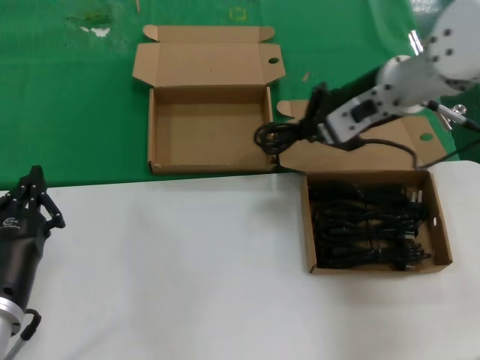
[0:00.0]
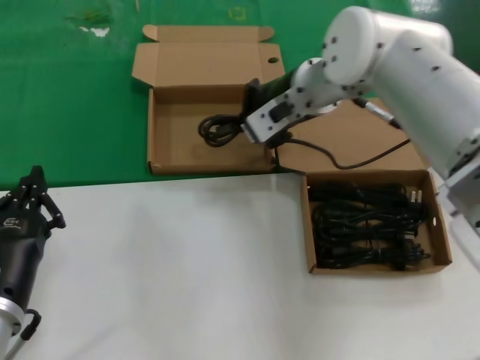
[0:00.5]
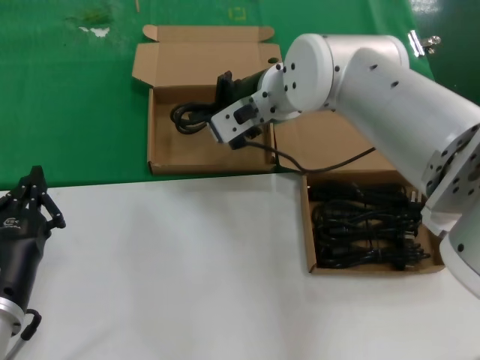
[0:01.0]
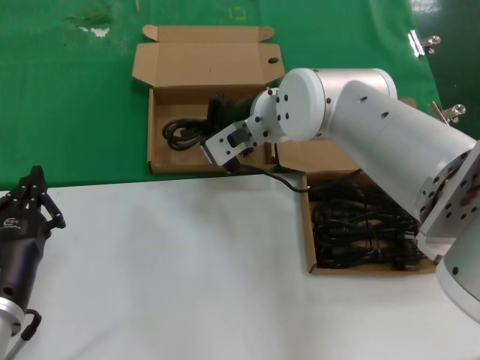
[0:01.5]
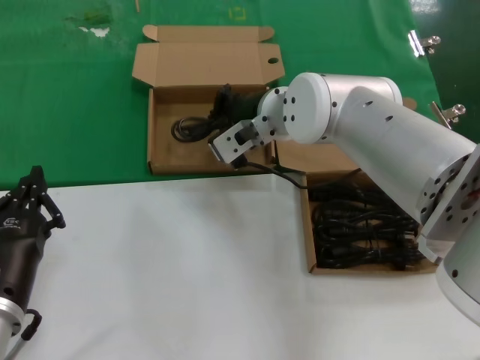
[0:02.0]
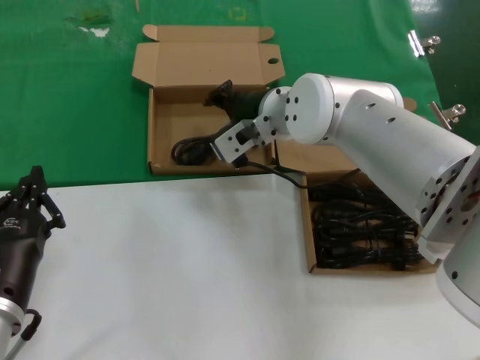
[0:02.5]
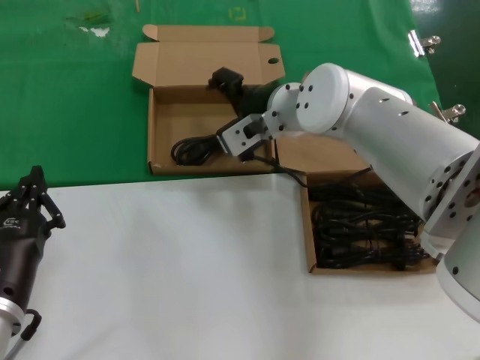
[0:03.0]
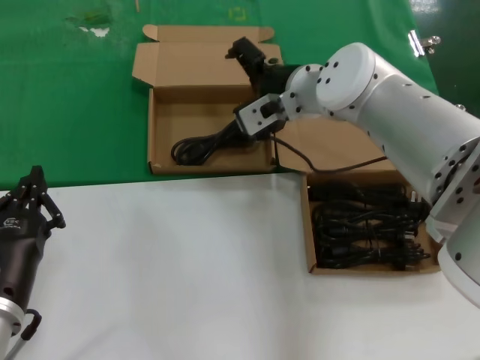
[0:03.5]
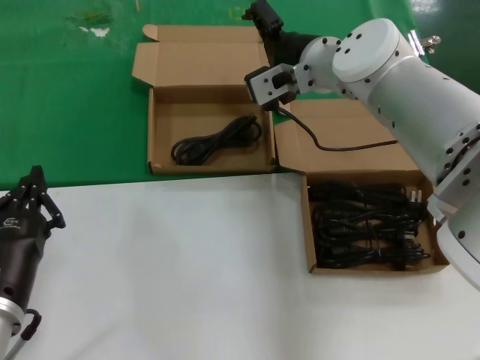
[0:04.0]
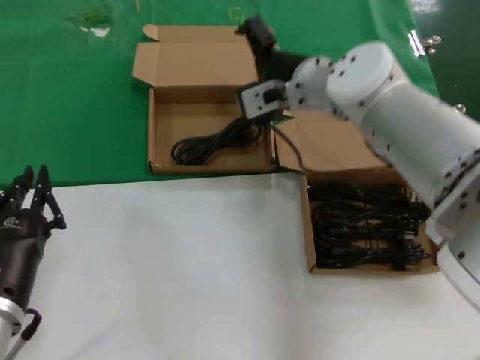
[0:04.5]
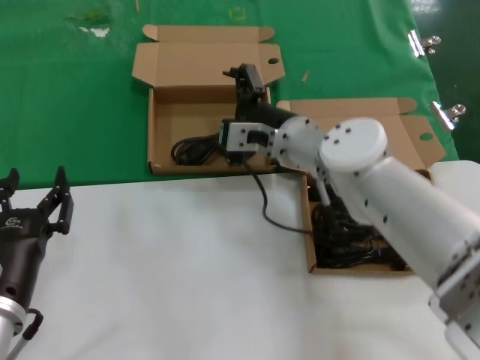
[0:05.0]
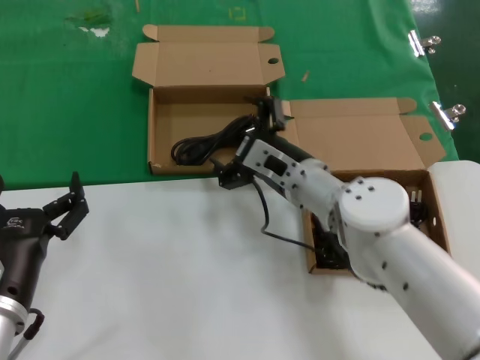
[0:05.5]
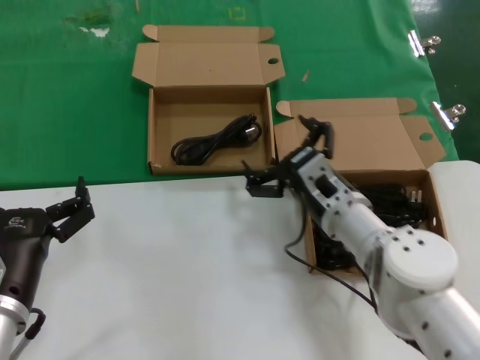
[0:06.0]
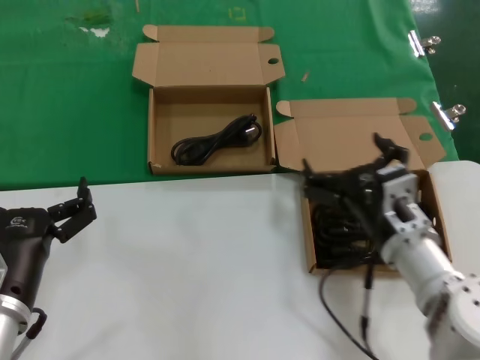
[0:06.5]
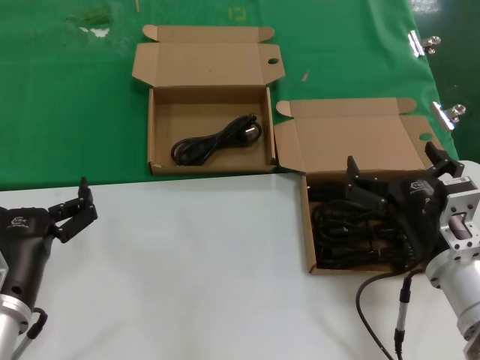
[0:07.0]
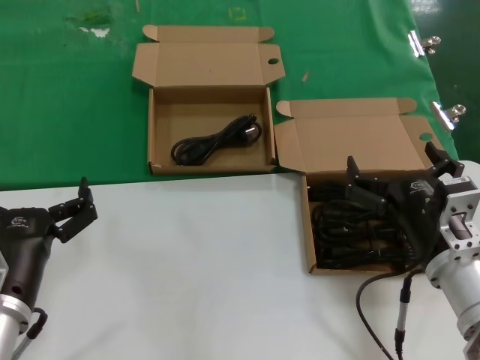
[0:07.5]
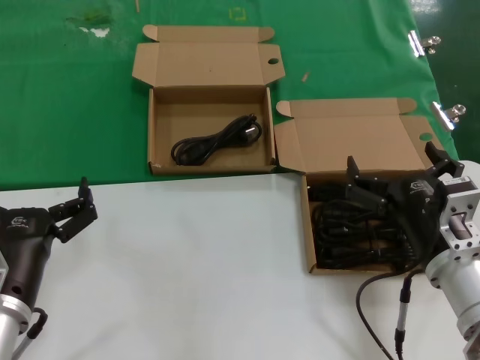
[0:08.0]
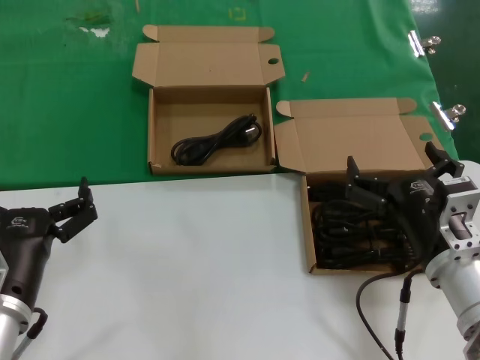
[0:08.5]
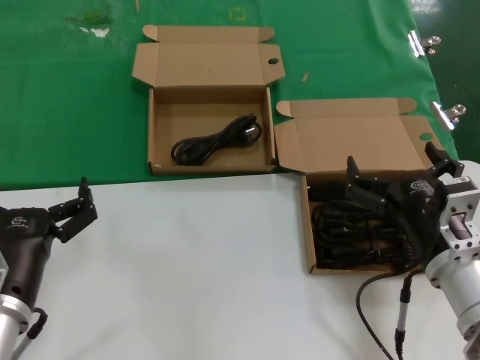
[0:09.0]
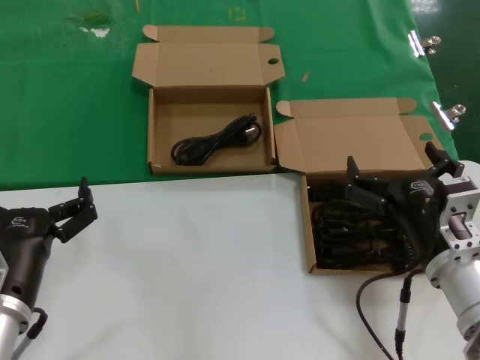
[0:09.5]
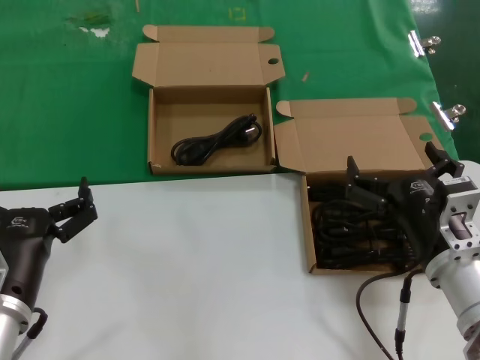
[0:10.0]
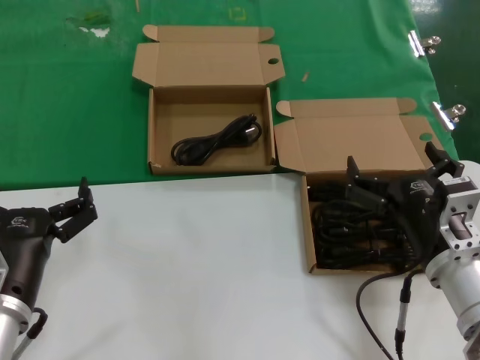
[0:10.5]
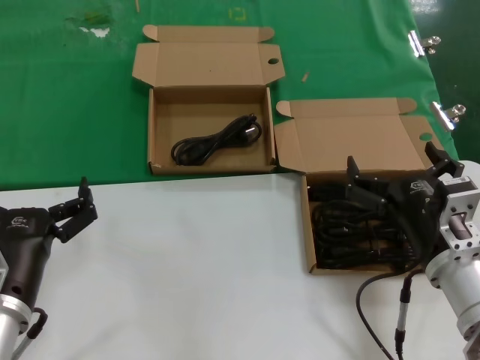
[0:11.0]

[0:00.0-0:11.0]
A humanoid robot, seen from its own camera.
Task of the whole recording: take the parts from the box containing them and put them into an empty box.
Step, 0:00.0 to 0:02.0: Place the data cable in the another box.
0:00.0 to 0:02.0: The right hand shifts approximately 15 cm to the left and downward.
0:02.0 to 0:03.5: The hands stay close to where they were, moving slightly.
0:03.5 to 0:05.5: The right hand moves downward and backward, roughly 15 cm.
0:05.5 to 0:07.5: The right hand heads backward and to the right, covering roughly 20 cm.
0:07.5 to 0:11.0: Both hands stay put.

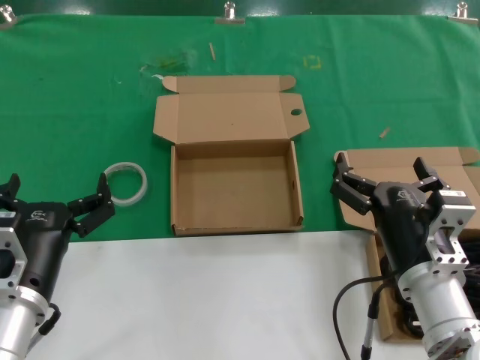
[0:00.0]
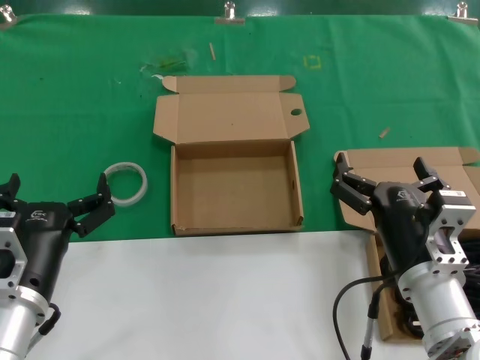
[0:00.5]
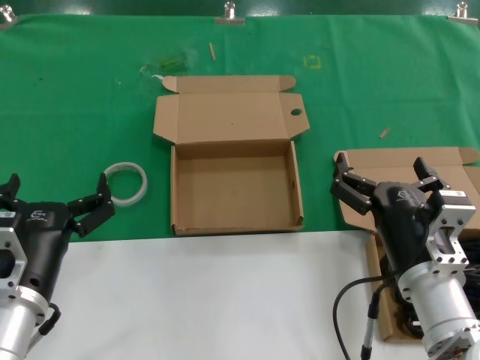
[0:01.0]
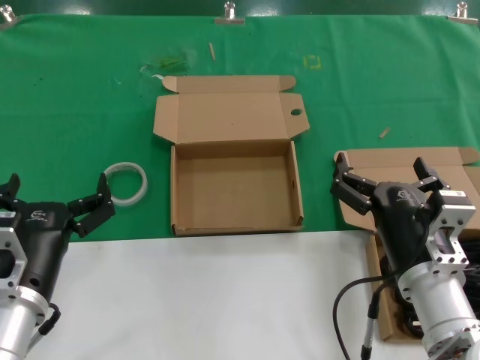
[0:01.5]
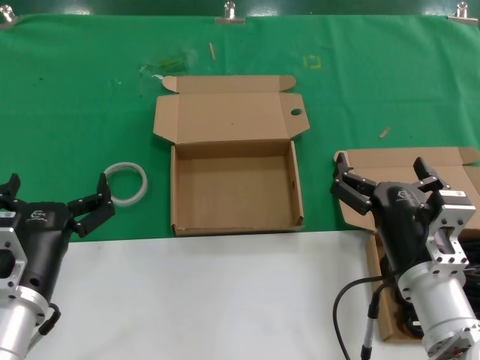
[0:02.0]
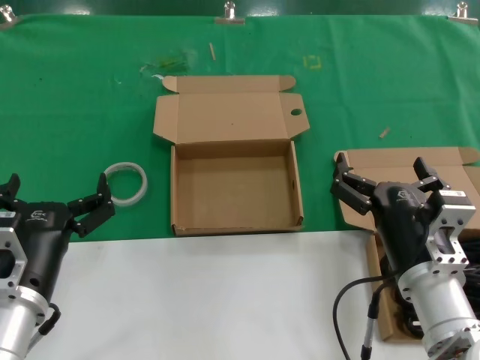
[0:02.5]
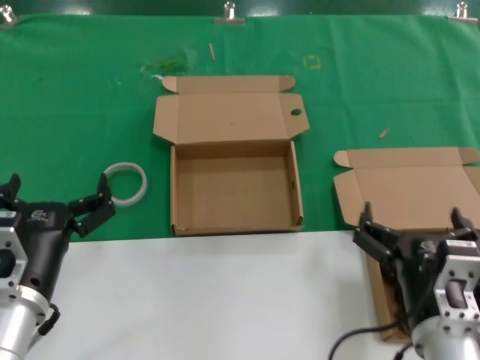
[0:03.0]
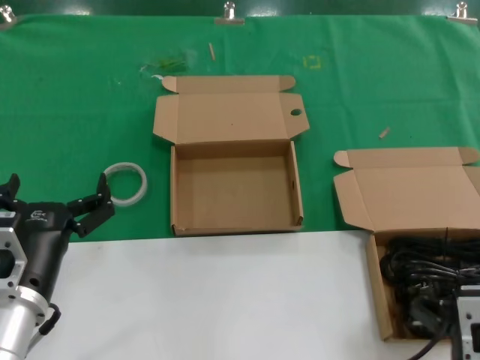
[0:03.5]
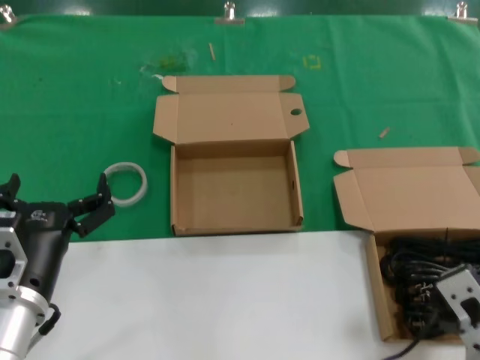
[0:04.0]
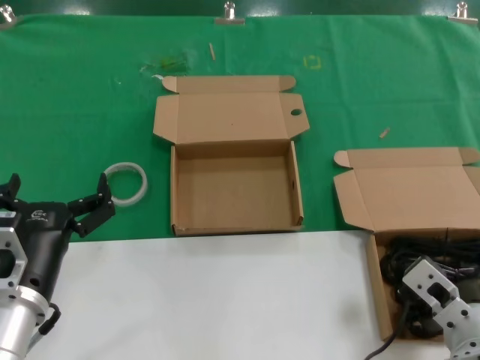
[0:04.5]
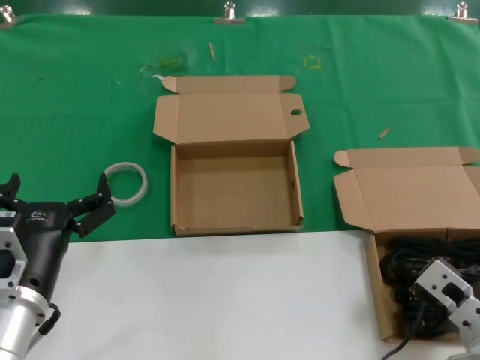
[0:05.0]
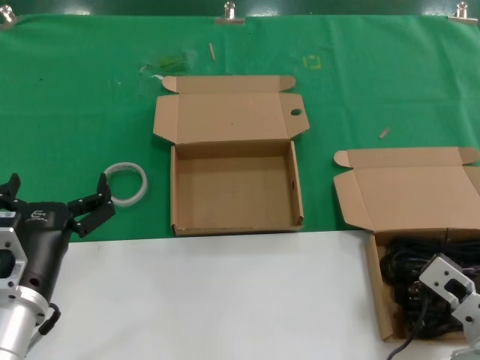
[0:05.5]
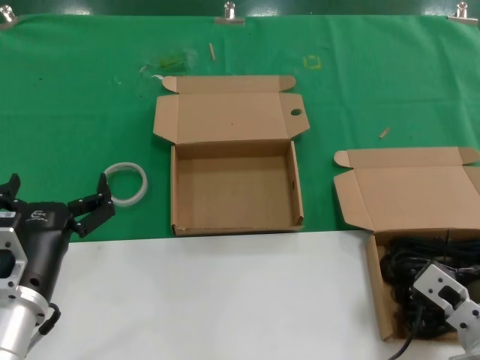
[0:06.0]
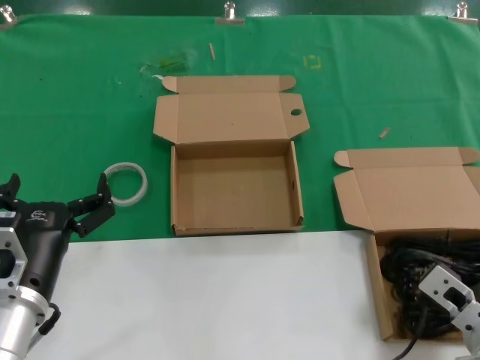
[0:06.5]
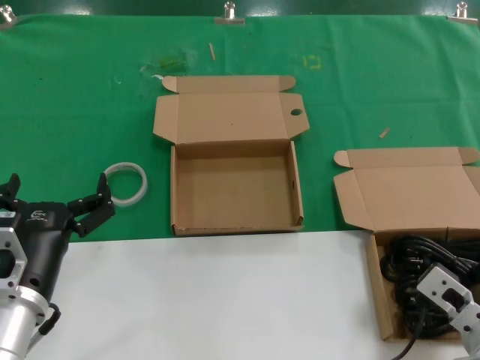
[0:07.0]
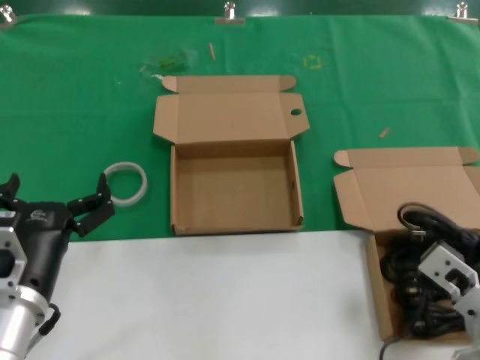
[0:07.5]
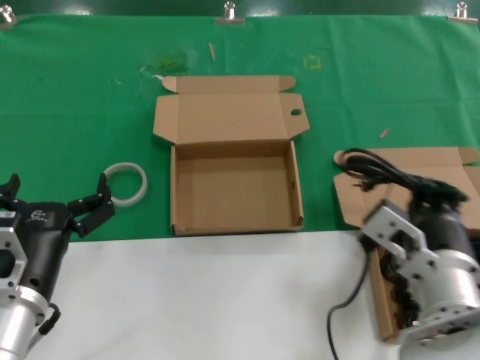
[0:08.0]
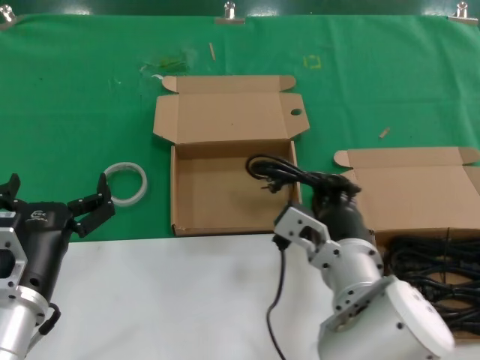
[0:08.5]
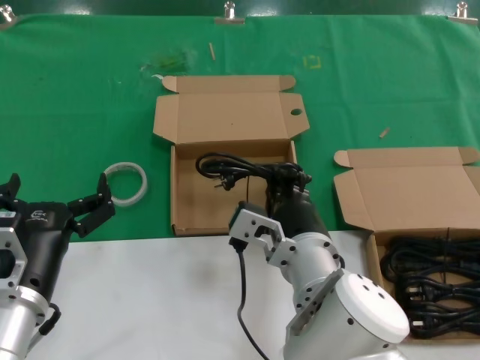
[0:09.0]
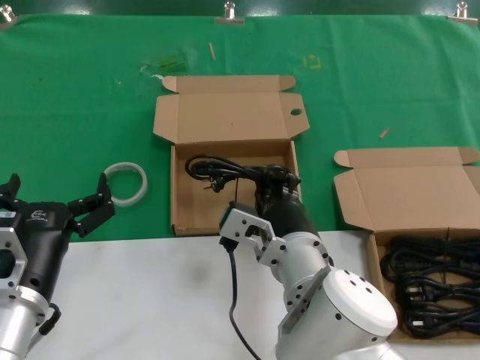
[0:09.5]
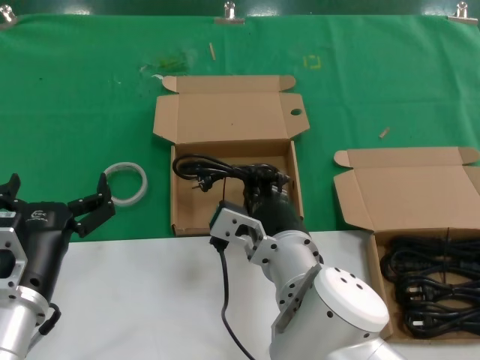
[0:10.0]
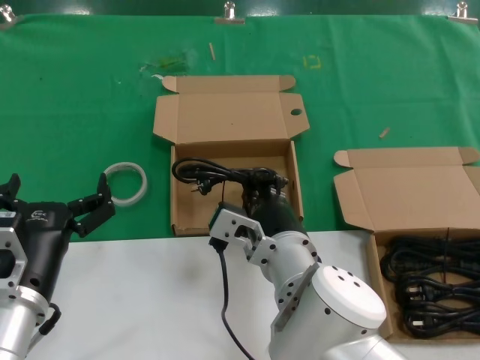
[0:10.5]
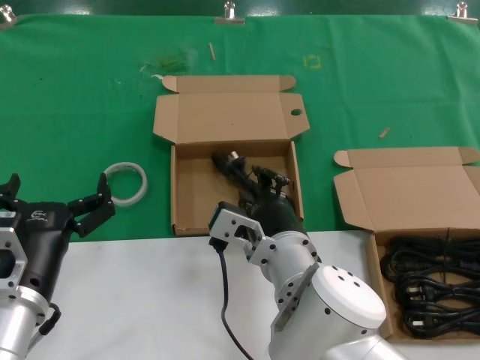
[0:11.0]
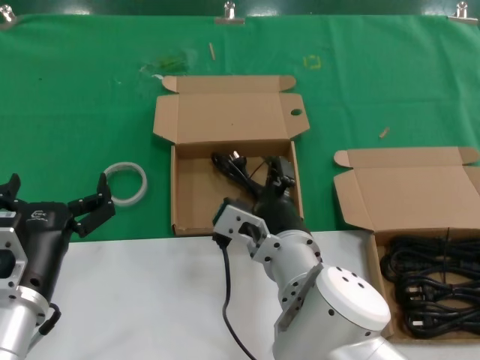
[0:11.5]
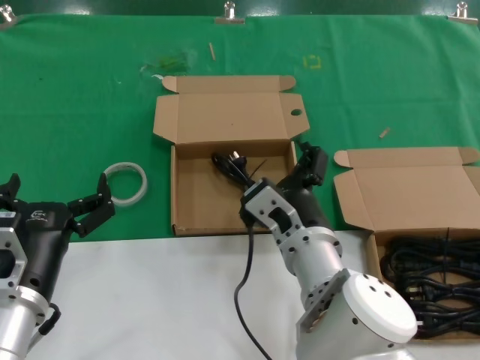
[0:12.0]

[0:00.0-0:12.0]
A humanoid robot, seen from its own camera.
Task of the whole recording: take the parts from the box containing them and put them into an empty box.
Step, 0:00.0 to 0:06.5: Grasp the data cable.
Step, 0:07.0 to 0:11.0: Place the data cable in the another box.
0:00.0 to 0:02.0: The two hands keep their place.
0:02.0 to 0:04.0: The right hand travels backward by roughly 10 cm.
0:04.0 to 0:06.0: The right hand heads forward, covering roughly 5 cm.
0:06.0 to 0:08.0: The right hand heads upward and to the left, covering roughly 10 cm.
0:08.0 to 0:10.0: The right hand is displaced to the left and forward by roughly 15 cm.
0:10.0 to 0:12.0: There are only small adjustments of the hands.

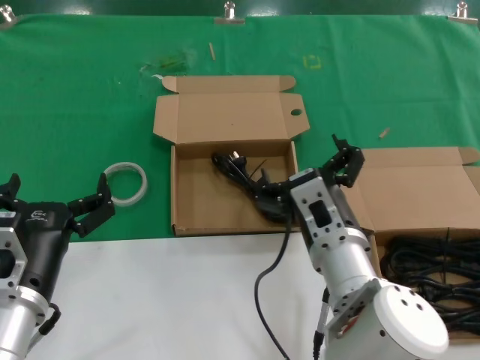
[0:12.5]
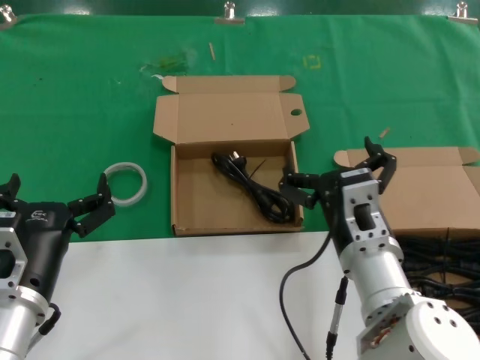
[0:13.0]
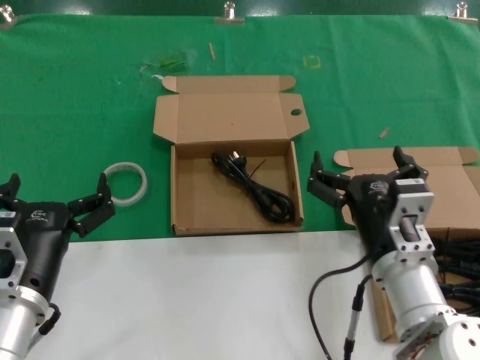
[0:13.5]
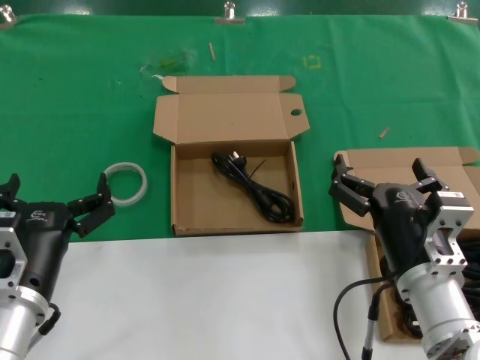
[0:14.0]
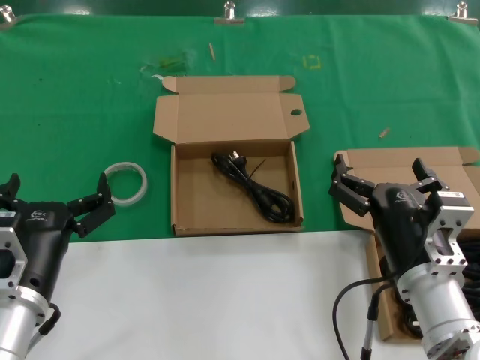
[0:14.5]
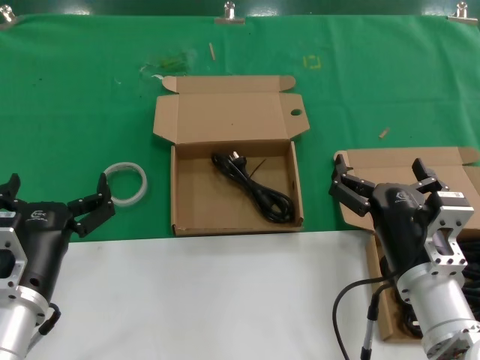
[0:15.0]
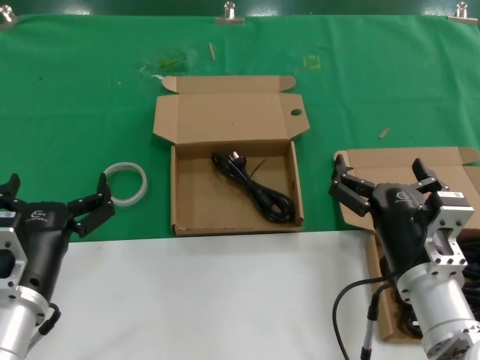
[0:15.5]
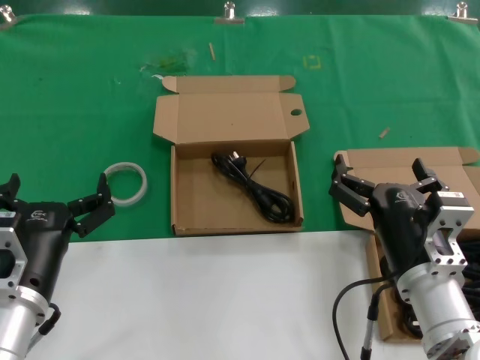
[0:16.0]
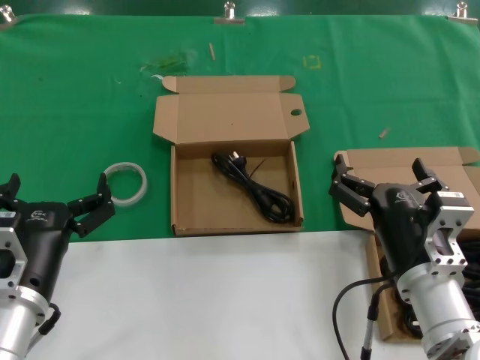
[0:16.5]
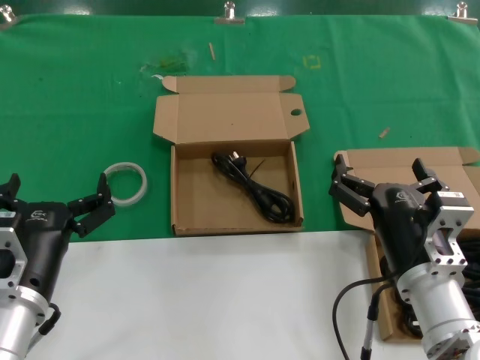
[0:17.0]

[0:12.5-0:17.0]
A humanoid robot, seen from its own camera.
Task of the whole recording: take the parts from the box containing them and put them into an empty box.
0:12.5 to 0:14.5: The right hand shifts approximately 10 cm to the right.
0:14.5 to 0:17.0: Neither hand changes place.
